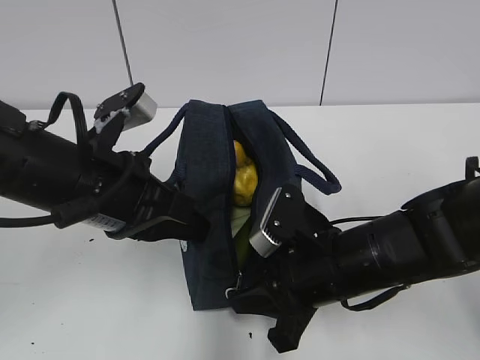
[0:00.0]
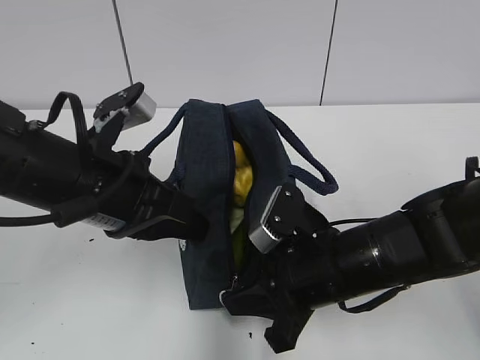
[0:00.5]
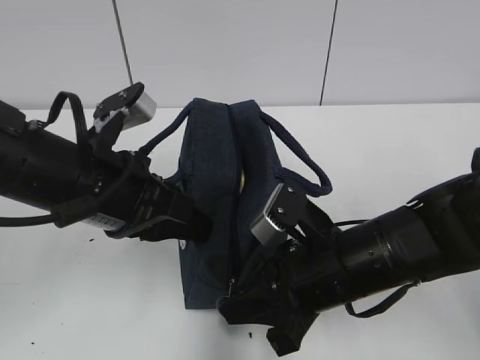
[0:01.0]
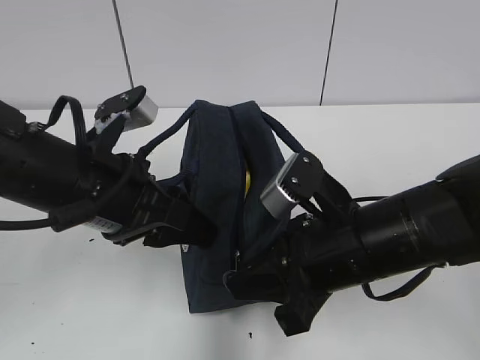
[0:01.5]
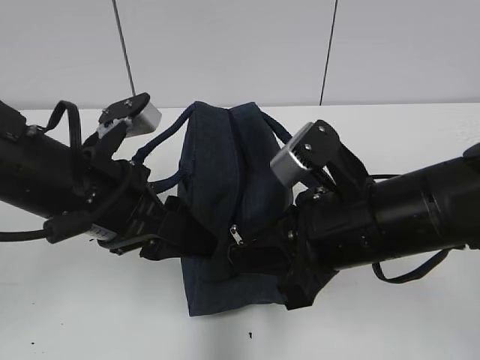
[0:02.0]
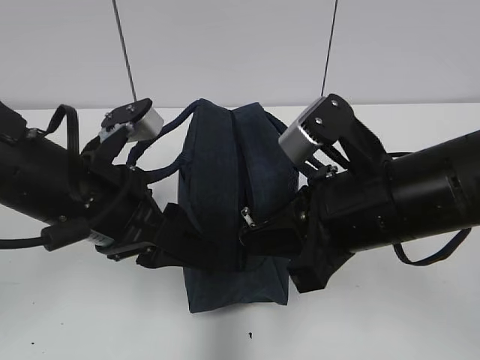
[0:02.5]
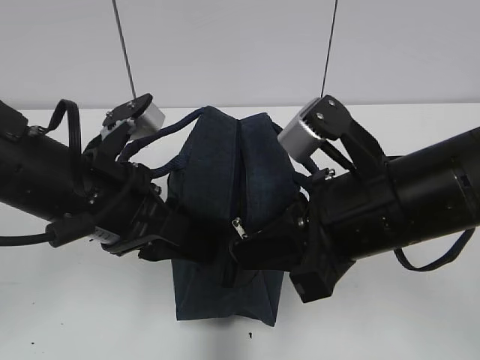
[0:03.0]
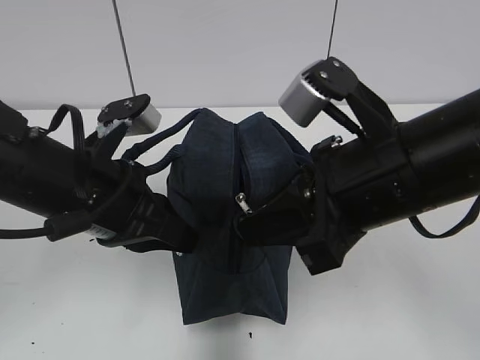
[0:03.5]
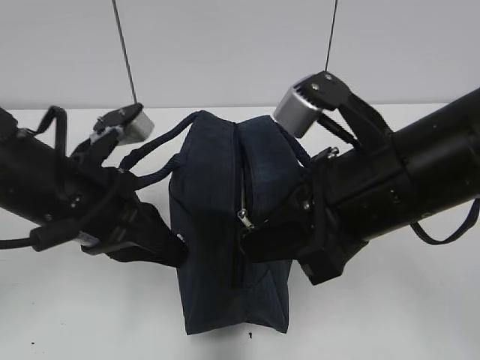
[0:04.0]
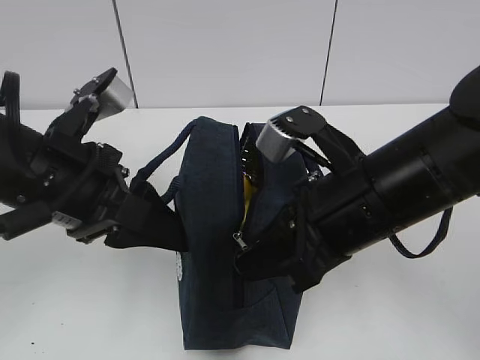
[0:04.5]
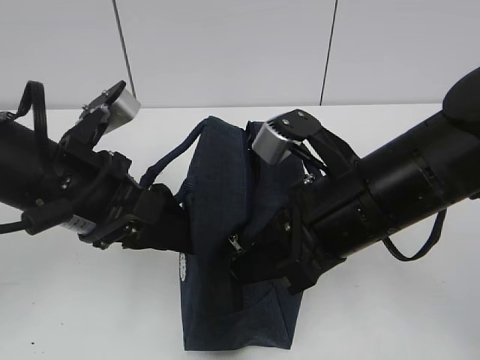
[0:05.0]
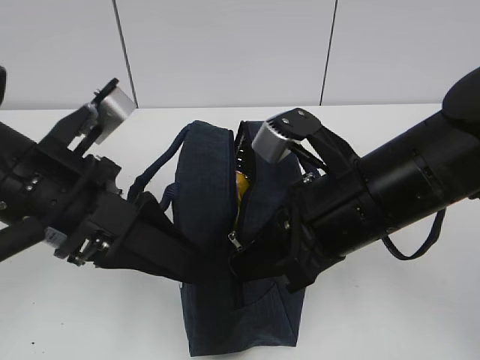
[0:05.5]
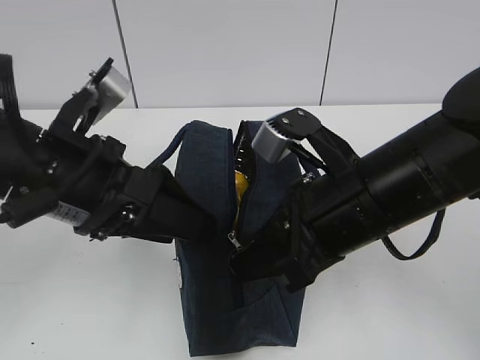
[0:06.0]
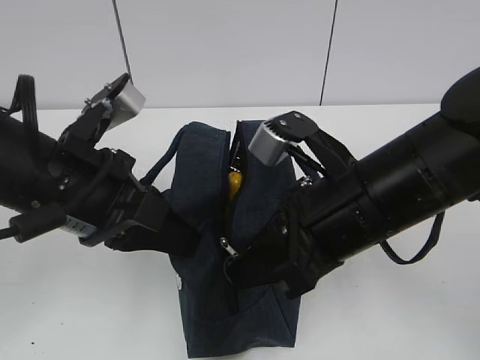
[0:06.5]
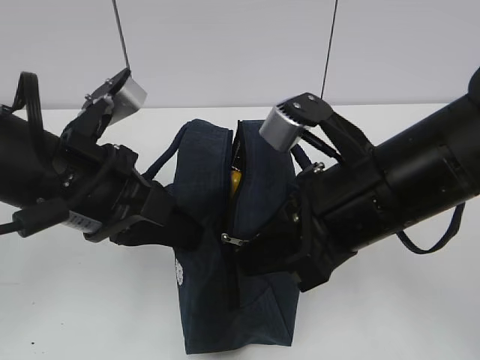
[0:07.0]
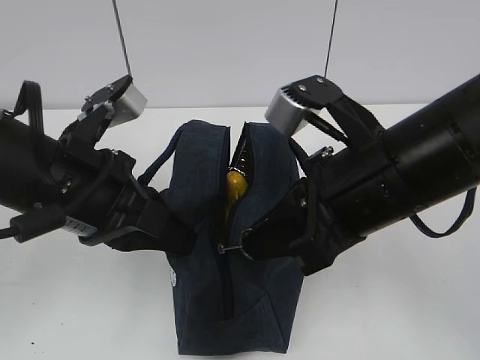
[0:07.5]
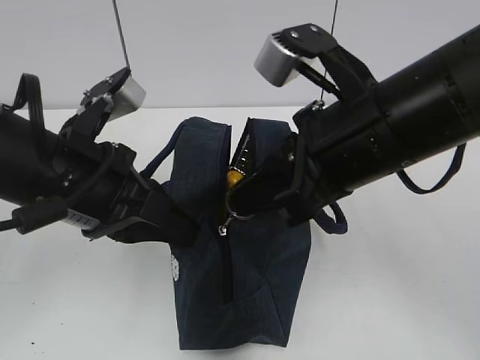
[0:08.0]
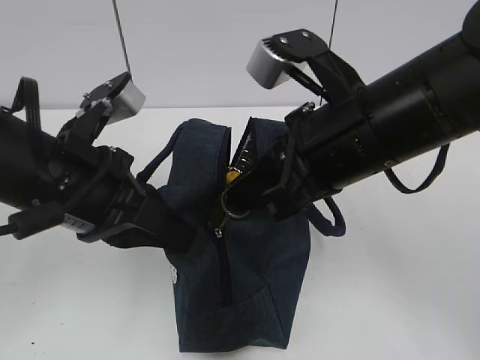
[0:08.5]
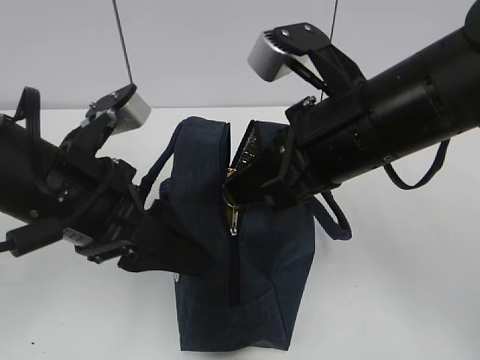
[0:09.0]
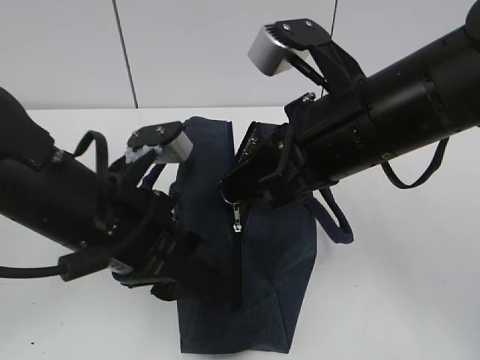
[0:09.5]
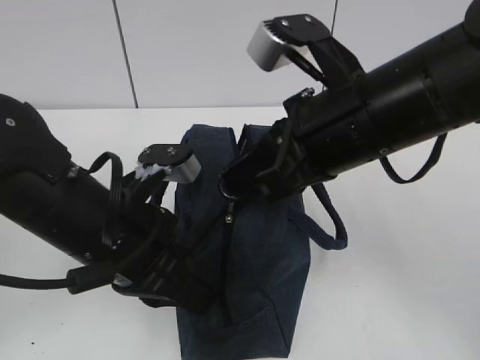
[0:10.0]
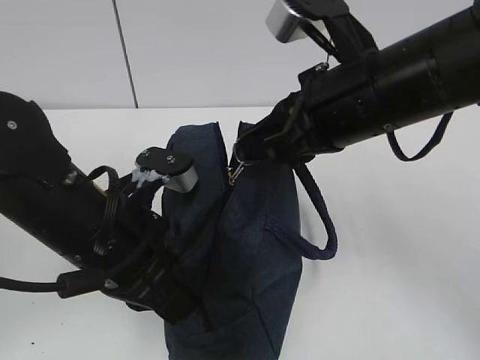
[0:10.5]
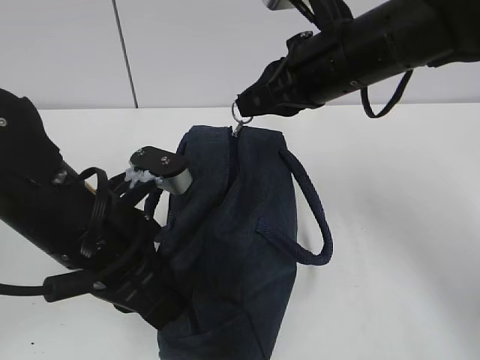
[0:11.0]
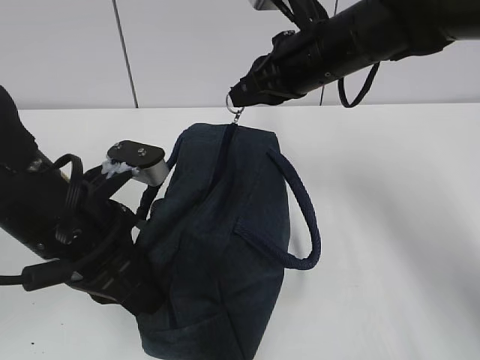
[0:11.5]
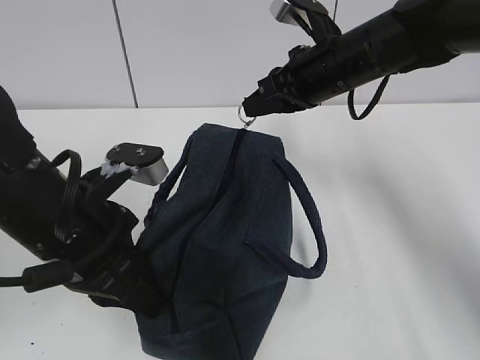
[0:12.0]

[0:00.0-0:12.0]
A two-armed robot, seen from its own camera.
Step, 0:00.0 to 0:06.0: Grab the lunch bag with your left hand.
0:00.0 to 0:02.0: The right gripper is displaced upward by approximately 10 cm. Meanwhile the left gripper opens.
0:02.0 to 0:04.0: The right gripper goes about 5 cm upward. The left gripper closes its fingers.
0:04.0 to 0:06.0: The left gripper opens.
0:06.0 to 0:08.0: The right gripper moves upward, approximately 5 cm. Meanwhile the left gripper closes its fingers.
0:08.0 to 0:10.0: The left gripper ends up approximately 5 cm from where it was, and opens, then closes once more.
0:10.0 to 0:12.0: The right gripper shifts some 15 cm forward.

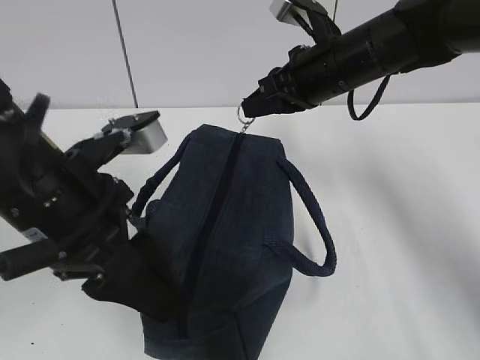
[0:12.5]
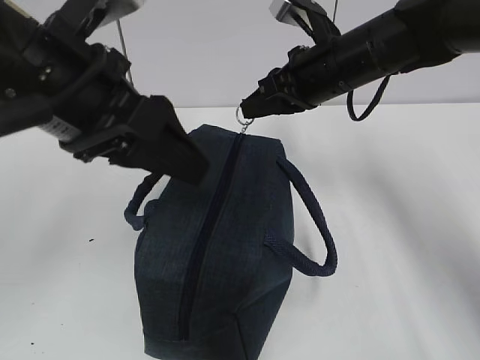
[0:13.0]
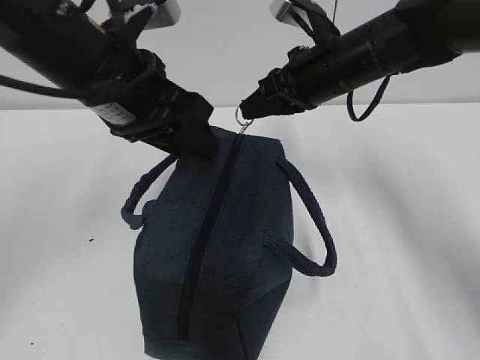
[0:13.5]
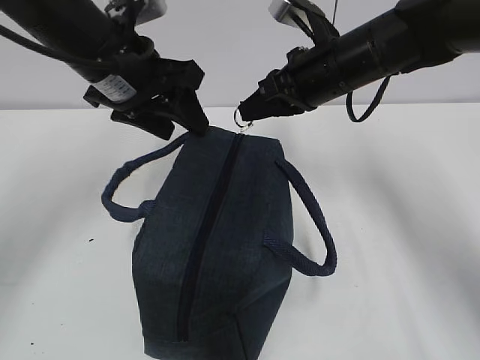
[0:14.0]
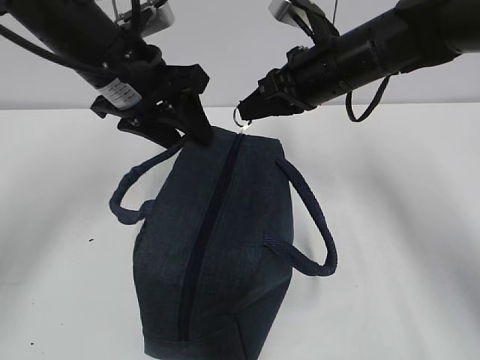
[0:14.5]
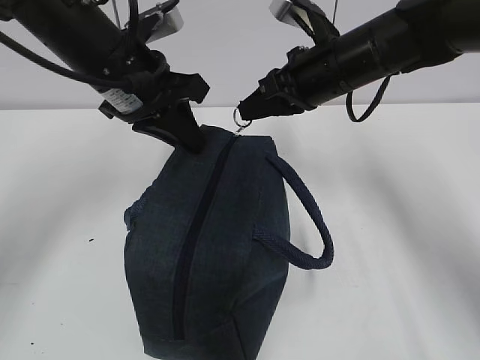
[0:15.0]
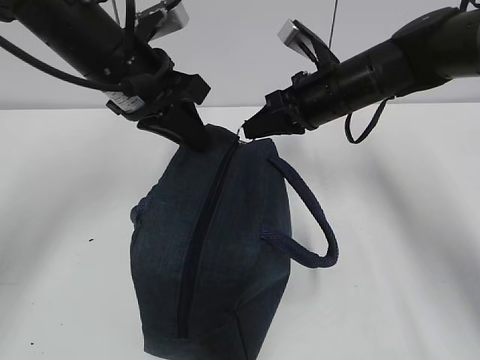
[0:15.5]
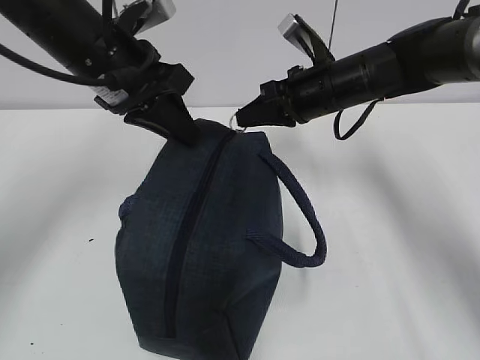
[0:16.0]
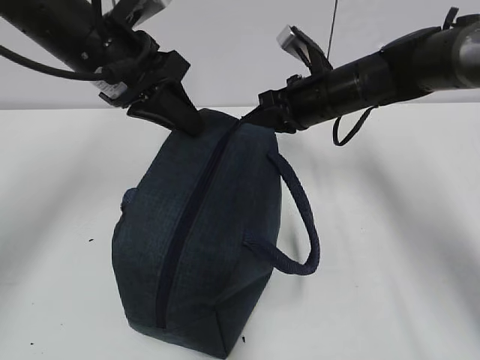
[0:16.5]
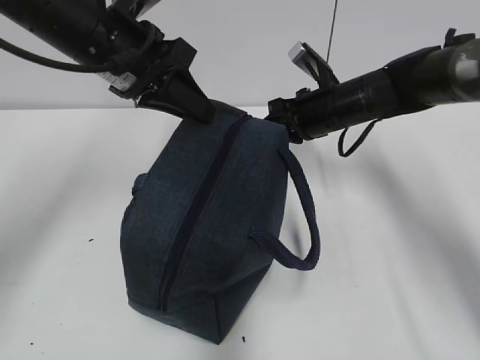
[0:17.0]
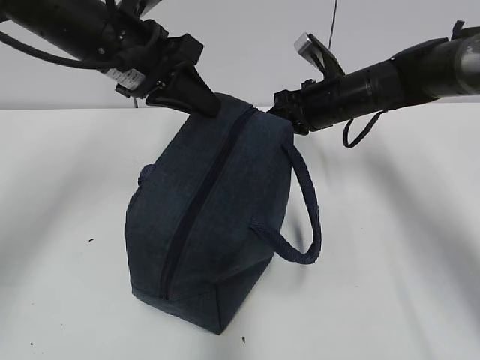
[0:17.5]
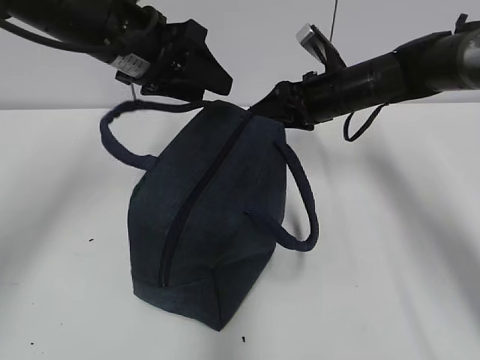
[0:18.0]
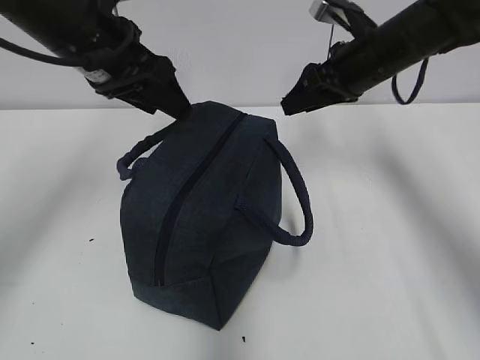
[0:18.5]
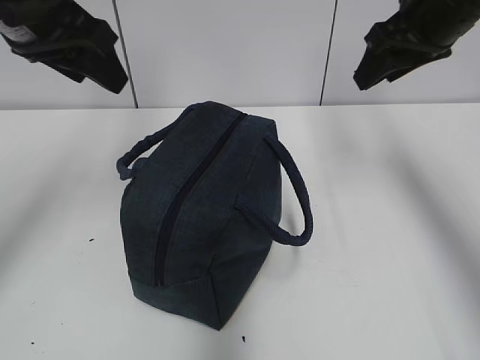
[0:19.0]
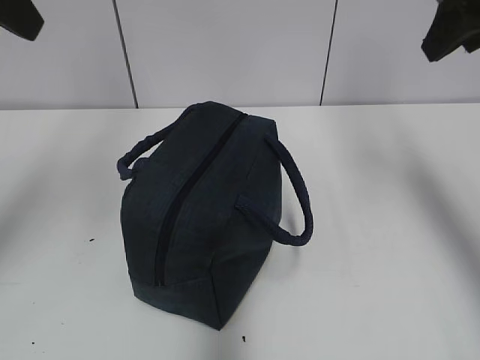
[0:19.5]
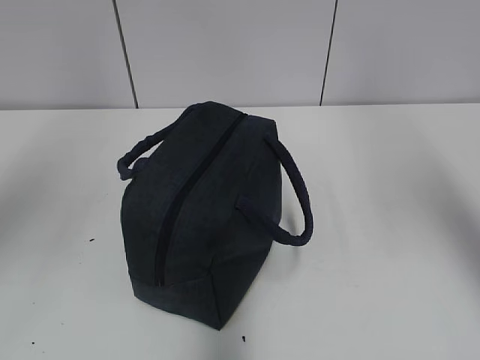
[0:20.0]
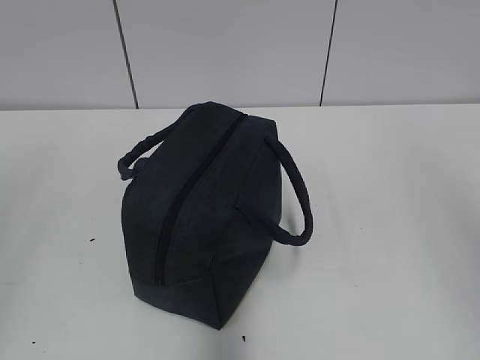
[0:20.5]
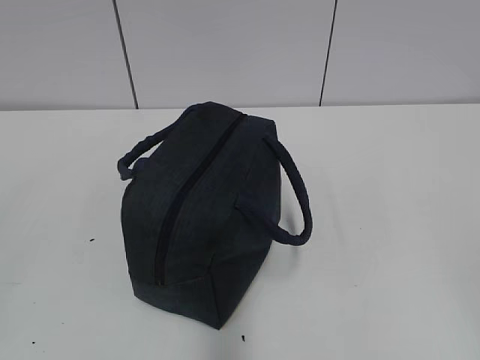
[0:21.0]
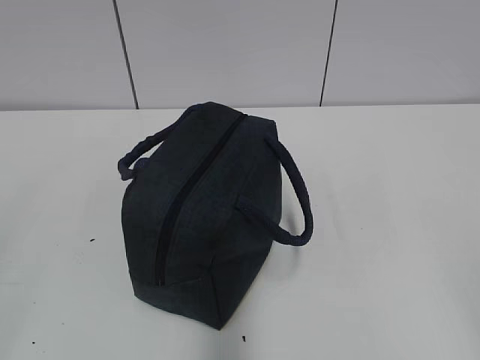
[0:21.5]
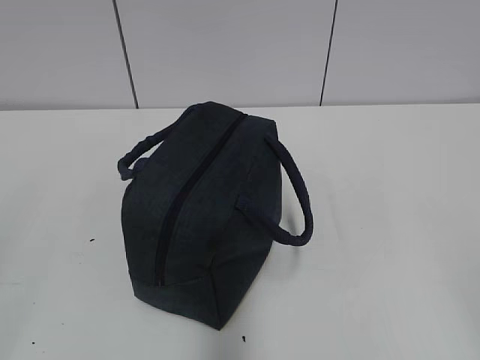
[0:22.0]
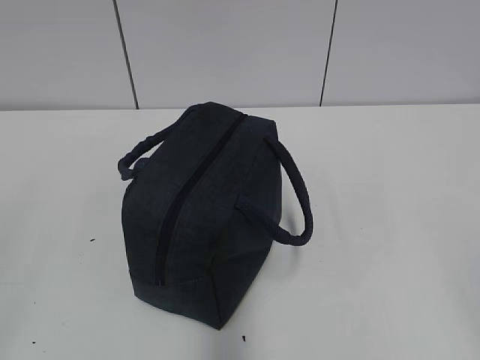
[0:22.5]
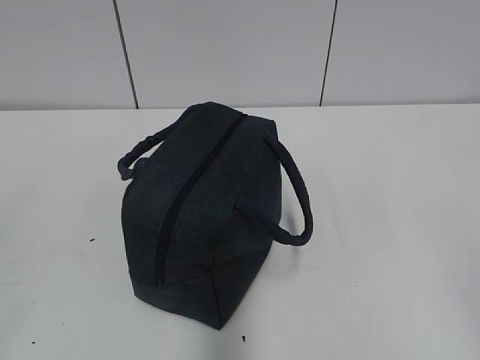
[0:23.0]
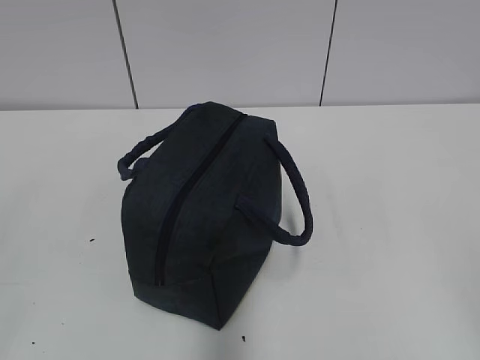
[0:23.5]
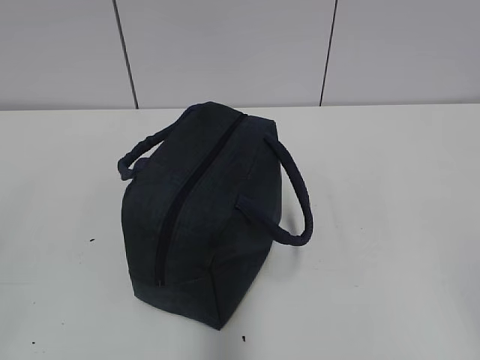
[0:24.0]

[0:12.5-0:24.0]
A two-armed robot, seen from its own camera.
Step, 0:12.5 to 0:18.0: Pull the zipper with your right hand.
0:12.5 to 0:14.5: The left gripper shifts roughly 15 cm forward.
0:14.5 to 0:16.5: The left gripper closes; the right gripper goes some 5 cm downward.
0:16.5 to 0:18.5: The left gripper opens, while the right gripper shifts some 5 cm upward, and opens up.
0:18.5 to 0:20.0: The right gripper goes about 30 cm backward and upward. The left gripper moves backward, upward and to the left, approximately 25 cm.
0:20.0 to 0:22.0: The left gripper shifts about 25 cm downward and backward. The right gripper is displaced backward and downward by approximately 30 cm.
